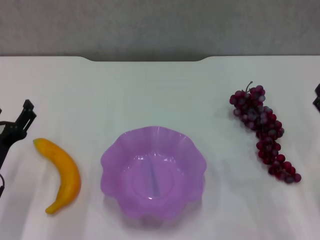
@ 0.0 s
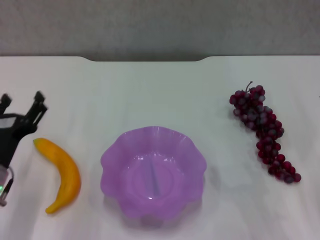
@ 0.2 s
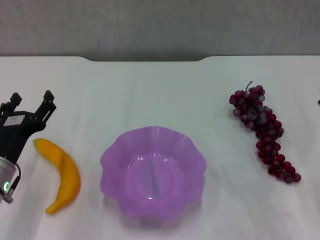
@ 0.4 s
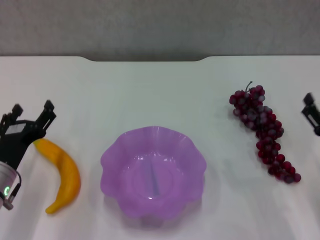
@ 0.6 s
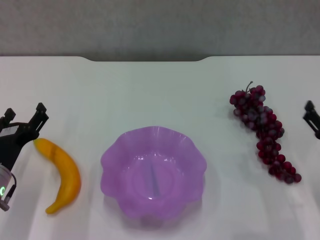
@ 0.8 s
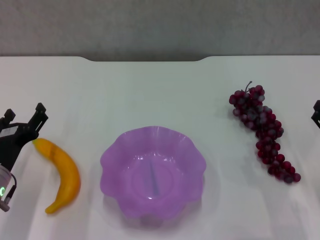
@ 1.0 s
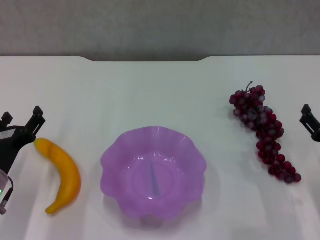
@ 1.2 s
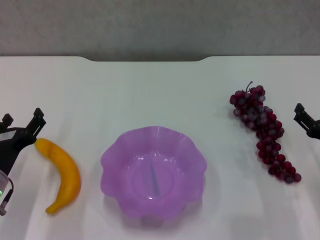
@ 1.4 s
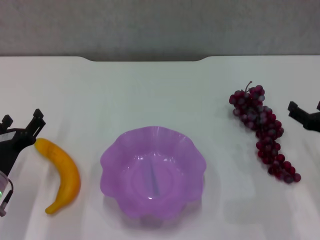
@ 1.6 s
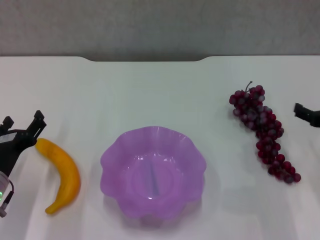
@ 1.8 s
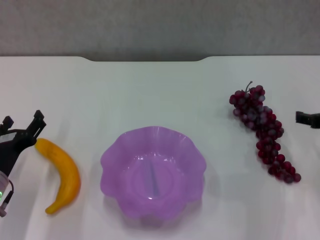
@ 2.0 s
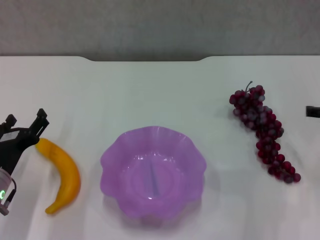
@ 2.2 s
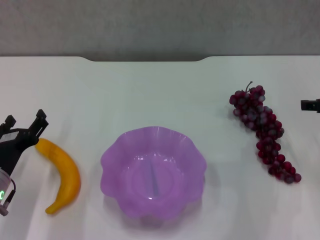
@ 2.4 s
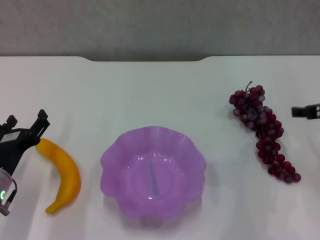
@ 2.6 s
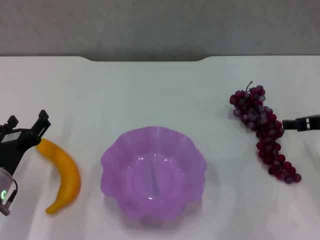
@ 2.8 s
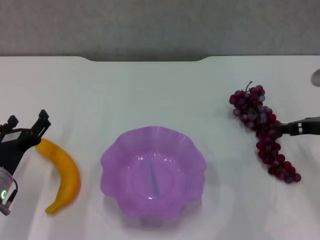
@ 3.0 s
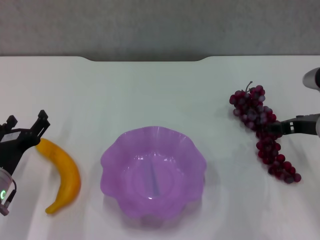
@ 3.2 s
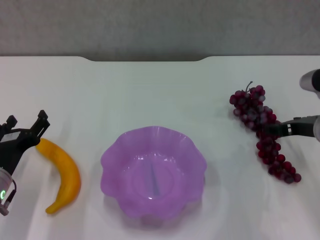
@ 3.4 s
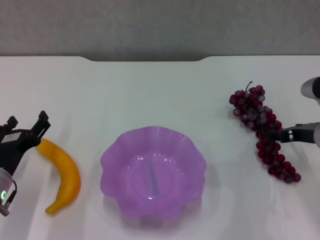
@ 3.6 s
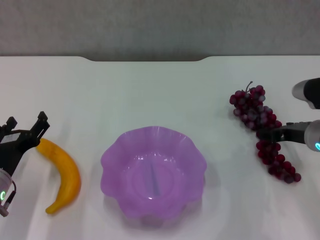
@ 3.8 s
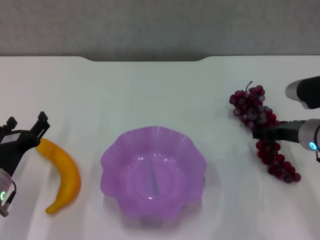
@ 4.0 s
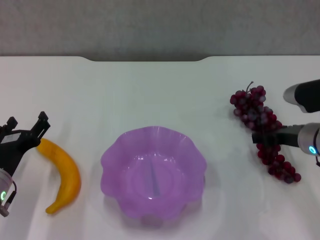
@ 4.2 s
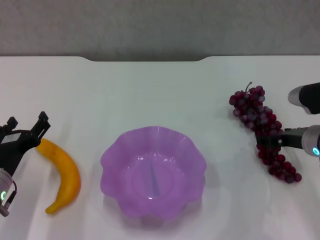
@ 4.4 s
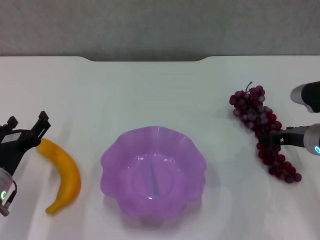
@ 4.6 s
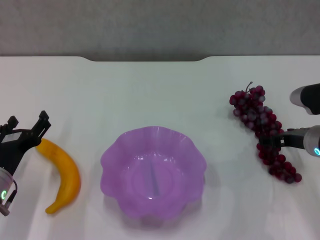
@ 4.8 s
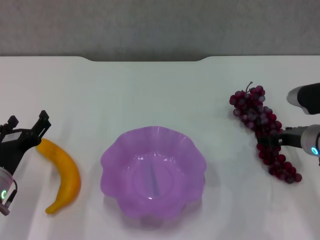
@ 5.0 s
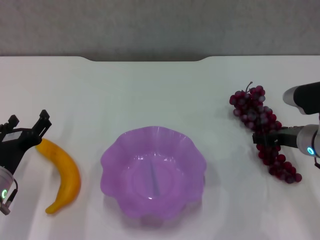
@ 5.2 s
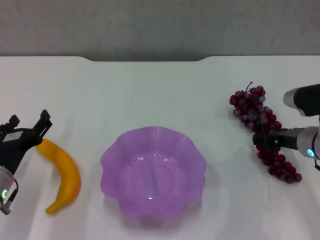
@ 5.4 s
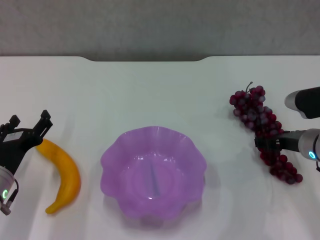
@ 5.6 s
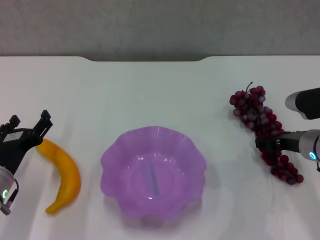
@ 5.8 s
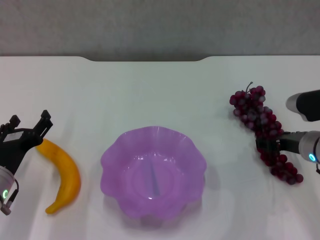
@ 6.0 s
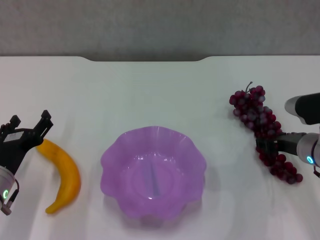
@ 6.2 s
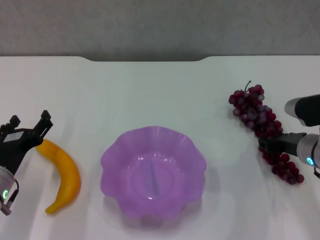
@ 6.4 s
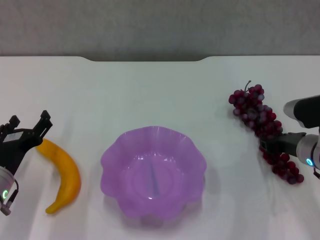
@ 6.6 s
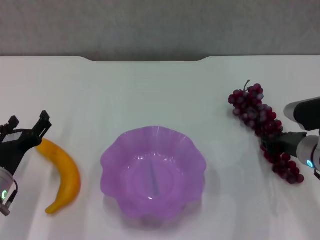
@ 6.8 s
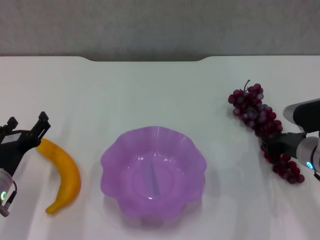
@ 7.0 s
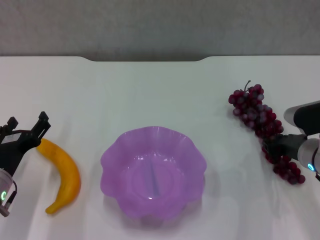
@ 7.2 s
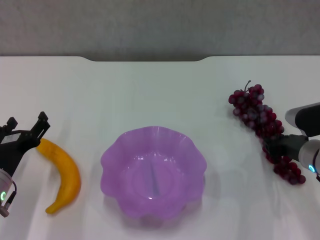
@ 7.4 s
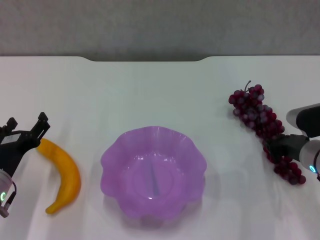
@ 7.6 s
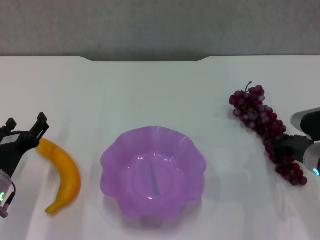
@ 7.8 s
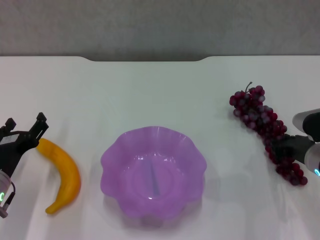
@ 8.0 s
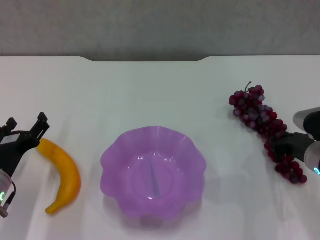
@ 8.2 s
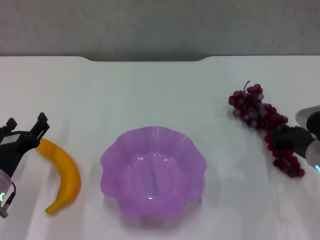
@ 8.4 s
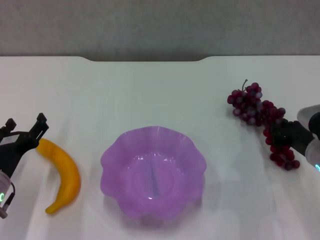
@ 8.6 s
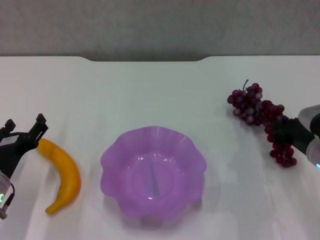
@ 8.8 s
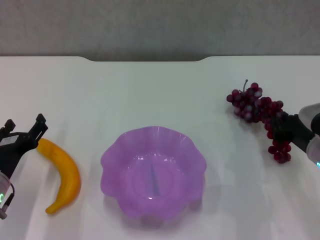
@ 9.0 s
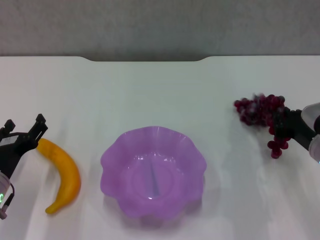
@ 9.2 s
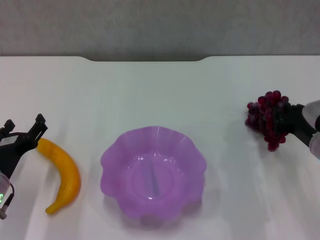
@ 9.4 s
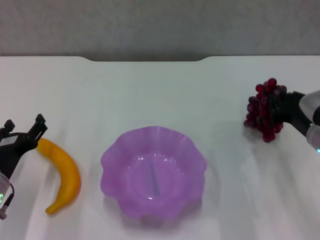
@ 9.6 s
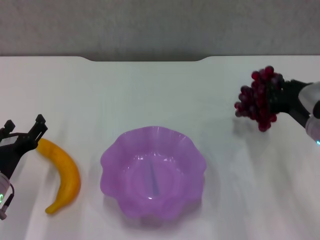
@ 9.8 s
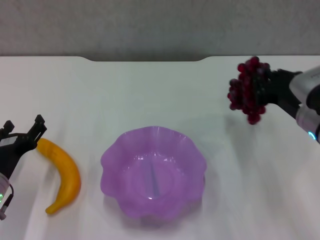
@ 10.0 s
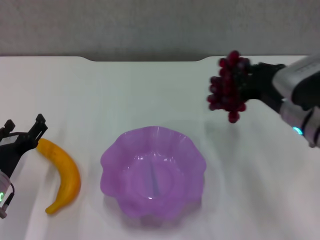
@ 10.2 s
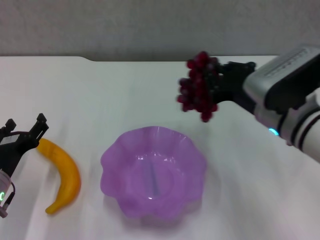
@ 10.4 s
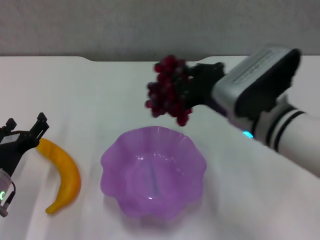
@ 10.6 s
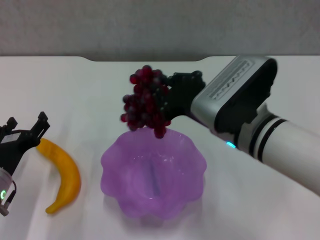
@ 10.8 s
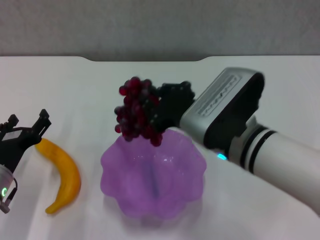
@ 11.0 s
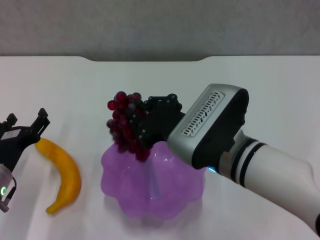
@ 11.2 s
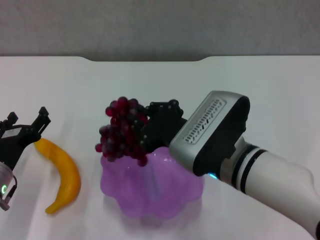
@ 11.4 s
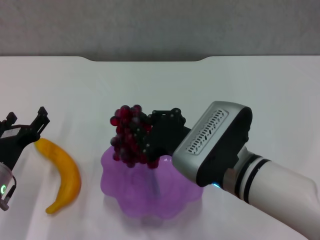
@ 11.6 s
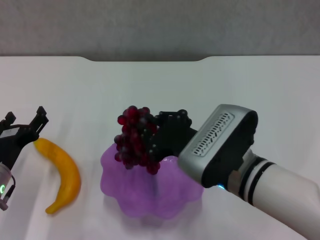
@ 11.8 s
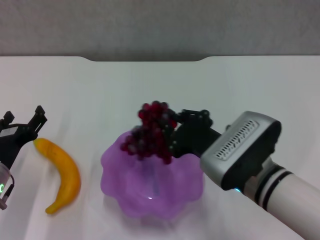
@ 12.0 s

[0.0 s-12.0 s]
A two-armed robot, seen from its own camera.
Step, 0.0 to 7.8 s: Grasp the grape with right gripper.
0.0 to 1.6 s: The right gripper shifts some 5 cm forward.
1.6 to 3.0 s: The right gripper shifts some 5 cm forward.
3.0 to 6.0 s: The grippers make only small movements.
6.0 to 7.6 s: The right gripper closes up.
7.6 to 9.0 s: The grippers stay close to where they were, moving slightly.
9.0 to 10.4 s: The right gripper heads to the left and upward, covering some 15 cm.
10.4 to 12.0 s: The right gripper heads backward, covering approximately 5 cm.

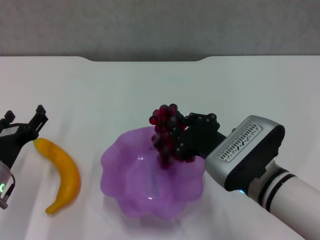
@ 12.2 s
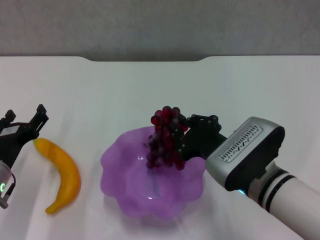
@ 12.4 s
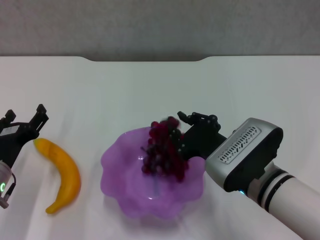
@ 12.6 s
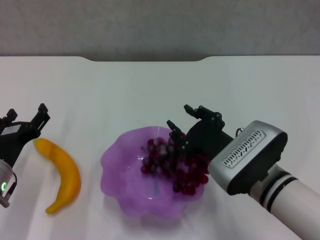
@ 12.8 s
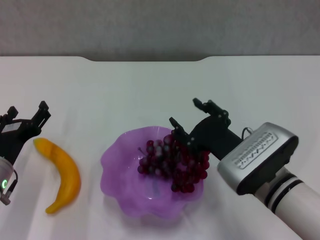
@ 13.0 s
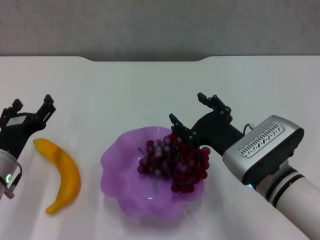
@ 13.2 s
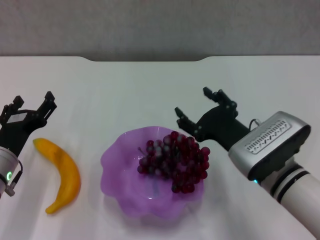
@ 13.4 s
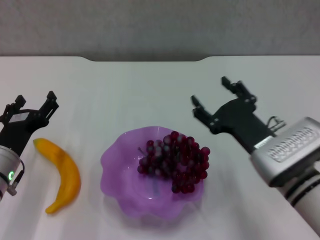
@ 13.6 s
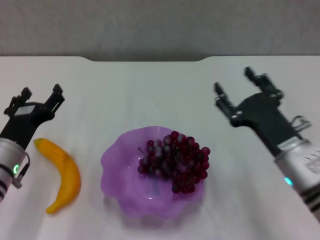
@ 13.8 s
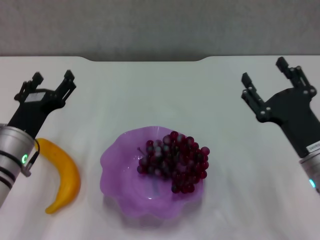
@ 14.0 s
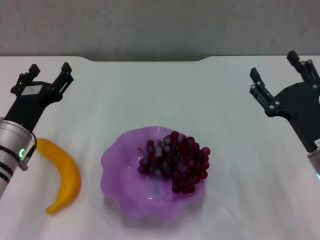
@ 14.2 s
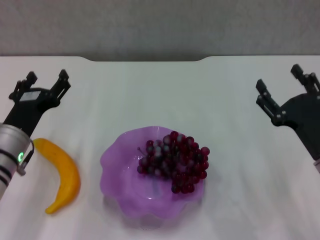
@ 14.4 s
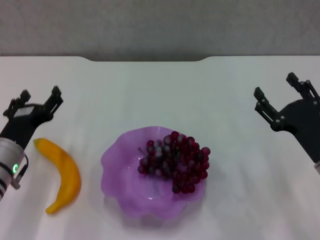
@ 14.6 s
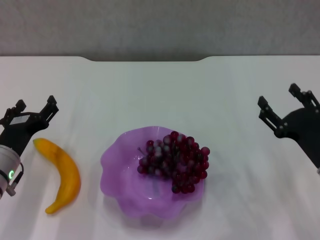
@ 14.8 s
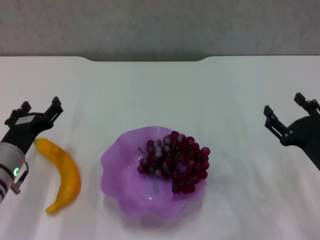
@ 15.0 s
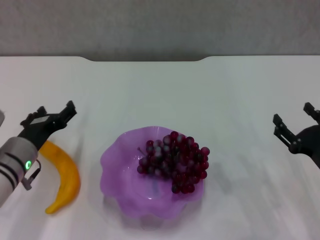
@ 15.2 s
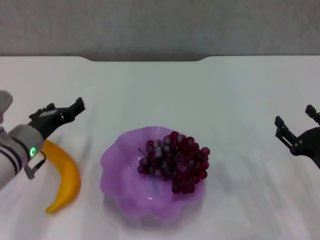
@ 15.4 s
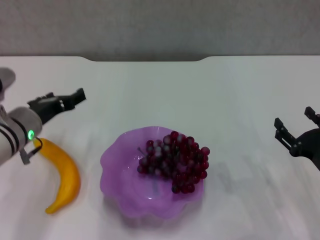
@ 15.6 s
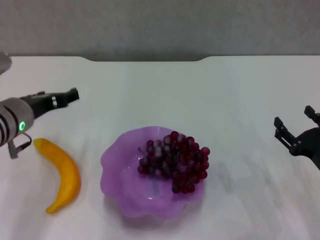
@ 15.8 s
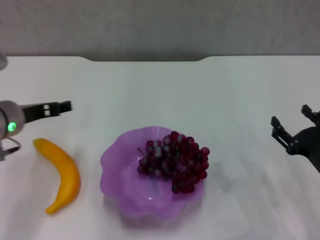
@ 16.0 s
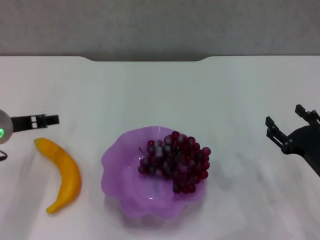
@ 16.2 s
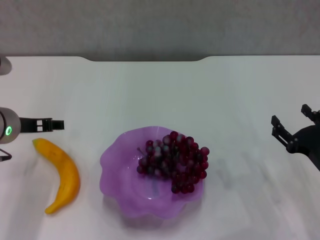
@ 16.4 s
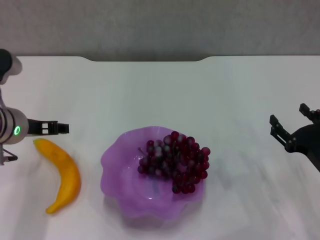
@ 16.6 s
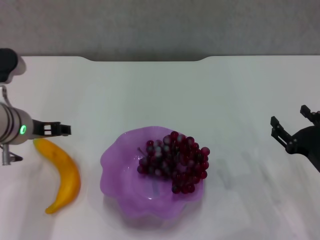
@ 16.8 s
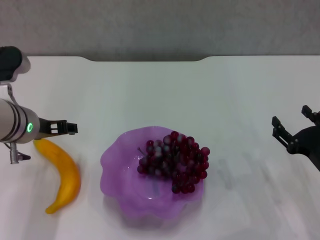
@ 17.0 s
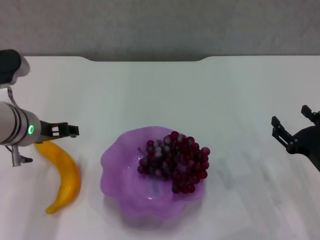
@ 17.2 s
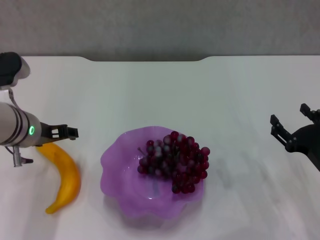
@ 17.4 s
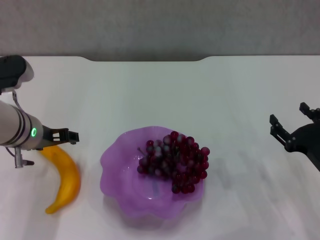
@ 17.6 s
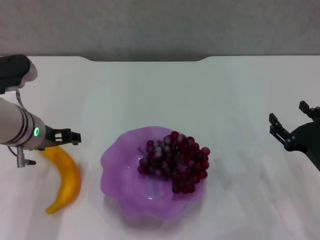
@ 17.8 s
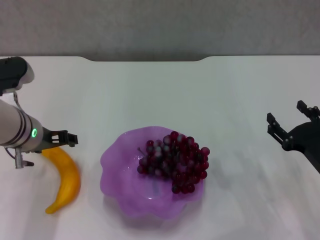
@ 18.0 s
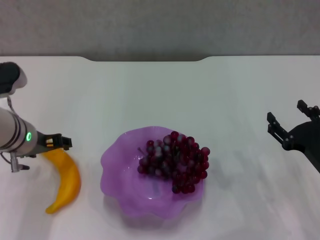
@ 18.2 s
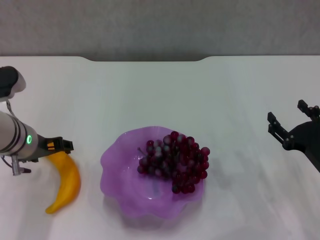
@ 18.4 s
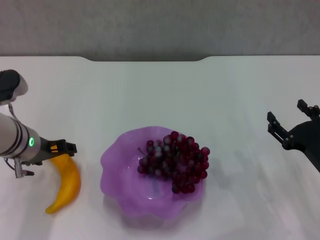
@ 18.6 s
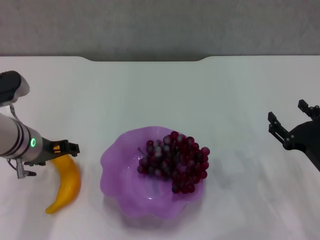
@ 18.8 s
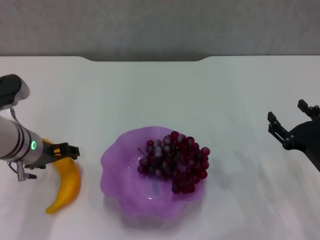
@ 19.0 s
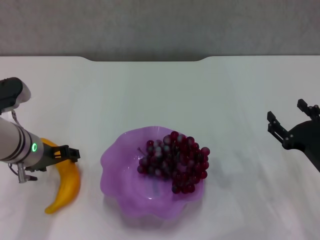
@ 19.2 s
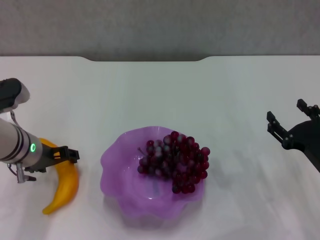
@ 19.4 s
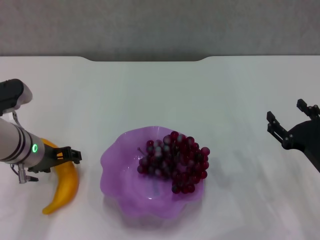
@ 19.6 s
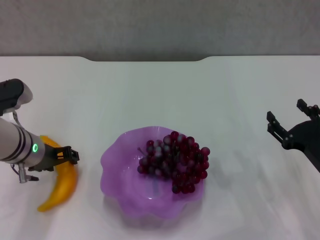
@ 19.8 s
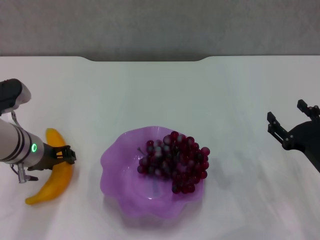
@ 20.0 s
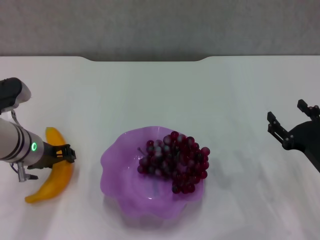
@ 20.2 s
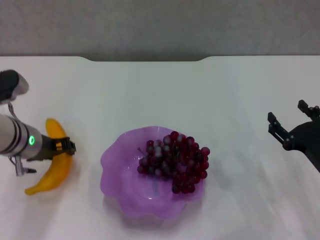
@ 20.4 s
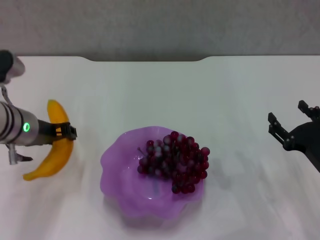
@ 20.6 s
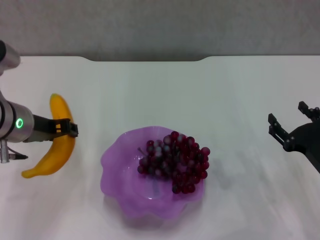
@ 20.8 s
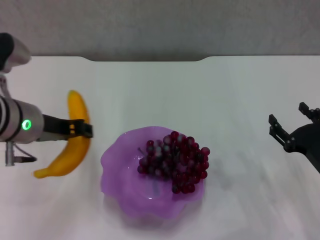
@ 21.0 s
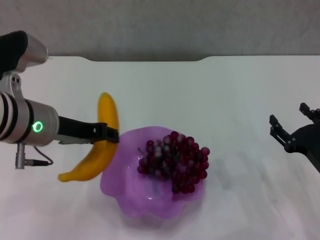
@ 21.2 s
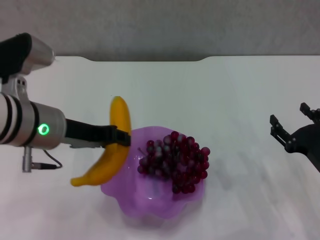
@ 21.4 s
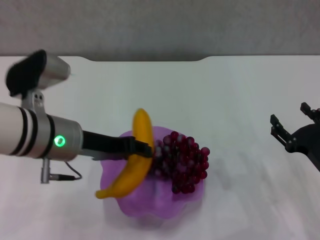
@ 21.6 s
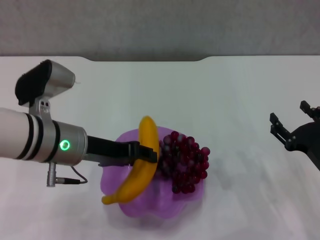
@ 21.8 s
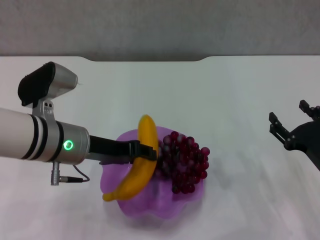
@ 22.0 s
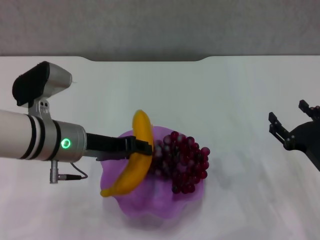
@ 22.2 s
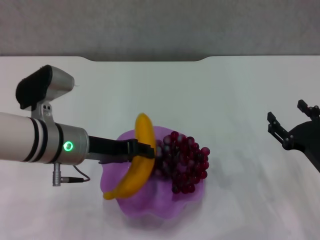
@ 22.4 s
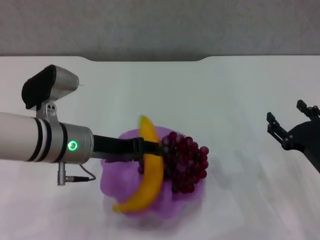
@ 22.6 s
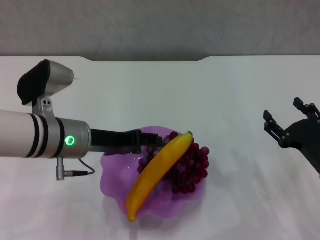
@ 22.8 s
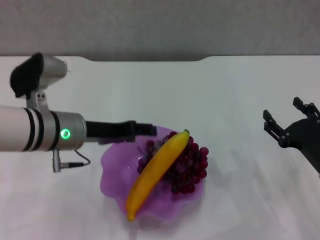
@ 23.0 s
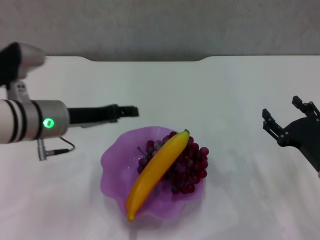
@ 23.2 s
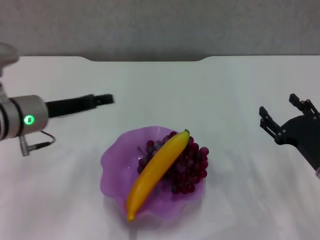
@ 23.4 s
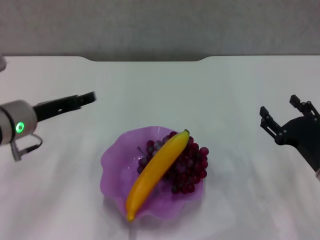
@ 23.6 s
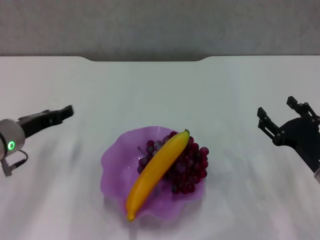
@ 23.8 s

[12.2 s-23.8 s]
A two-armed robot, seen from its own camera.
Step, 13.2 to 20.0 s: Grasp the banana with left gripper.
Step, 20.2 to 22.8 s: Place the banana in the purple plate with left gripper.
12.2 to 13.6 s: The right gripper opens.
13.6 to 15.0 s: The right gripper heads to the right, covering approximately 10 cm.
15.0 to 16.6 s: The left gripper is displaced upward by approximately 10 cm.
16.6 to 19.4 s: The grippers stay close to where they were, moving slightly.
19.4 to 21.0 s: The left gripper heads upward, covering approximately 10 cm, and closes.
21.0 to 22.4 s: The left gripper moves downward, roughly 5 cm.
22.4 to 23.8 s: The left gripper heads to the left, covering roughly 10 cm, and opens its fingers.
